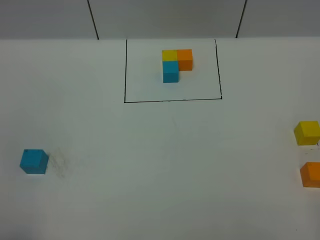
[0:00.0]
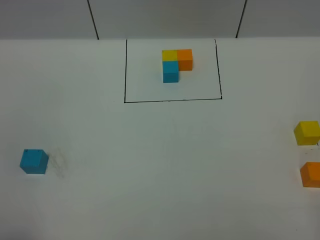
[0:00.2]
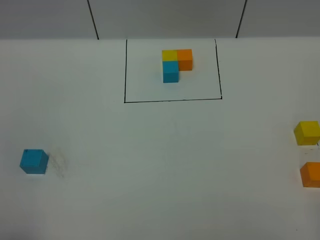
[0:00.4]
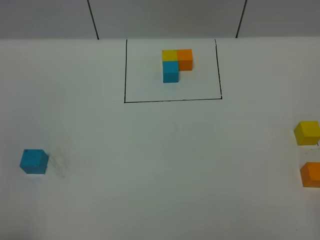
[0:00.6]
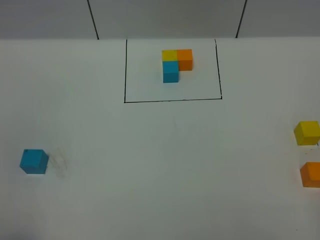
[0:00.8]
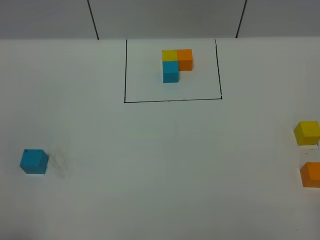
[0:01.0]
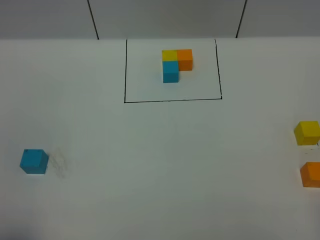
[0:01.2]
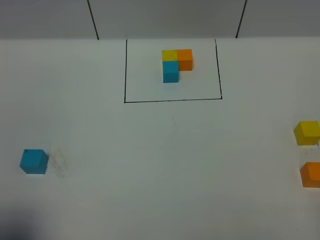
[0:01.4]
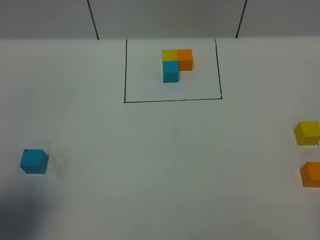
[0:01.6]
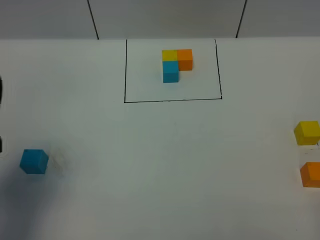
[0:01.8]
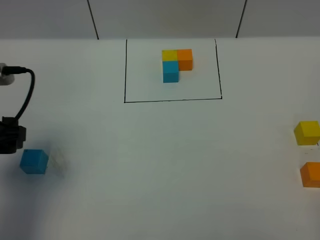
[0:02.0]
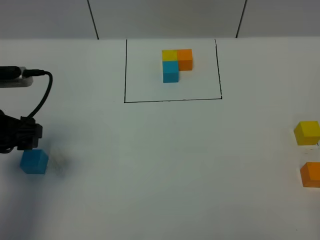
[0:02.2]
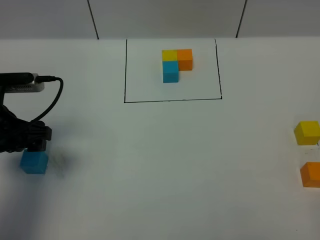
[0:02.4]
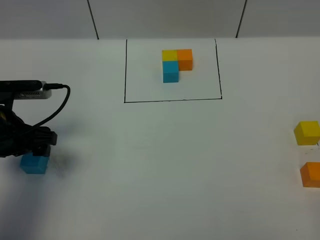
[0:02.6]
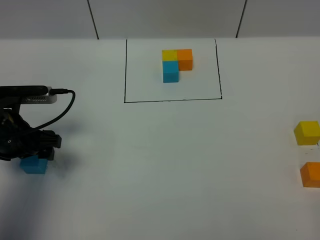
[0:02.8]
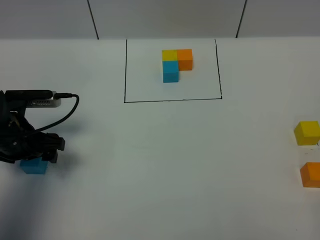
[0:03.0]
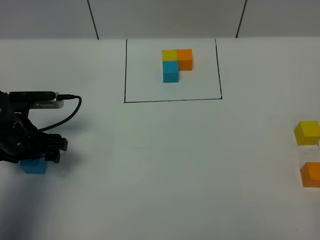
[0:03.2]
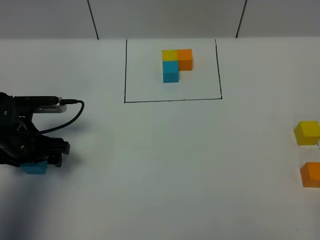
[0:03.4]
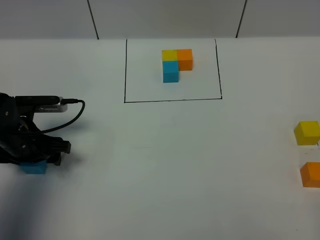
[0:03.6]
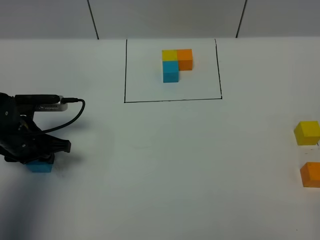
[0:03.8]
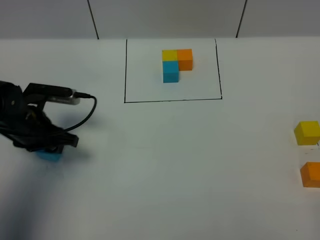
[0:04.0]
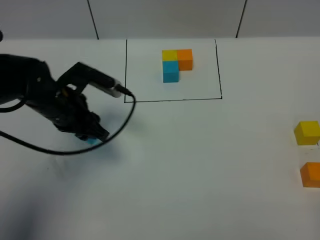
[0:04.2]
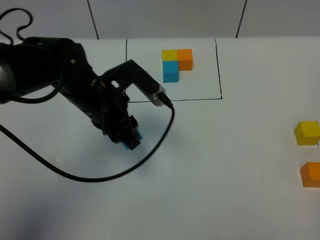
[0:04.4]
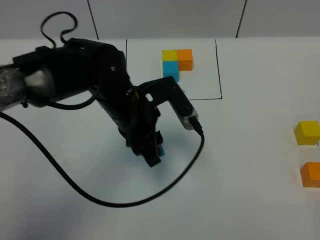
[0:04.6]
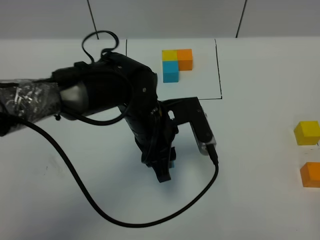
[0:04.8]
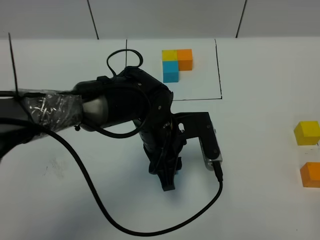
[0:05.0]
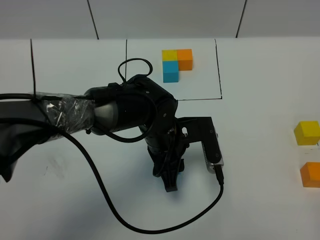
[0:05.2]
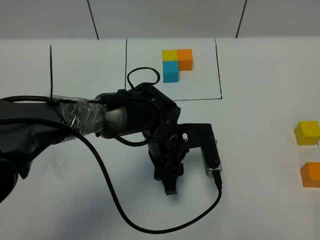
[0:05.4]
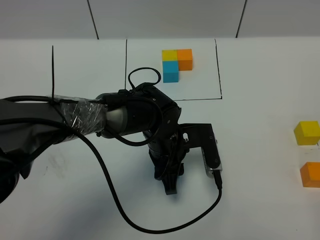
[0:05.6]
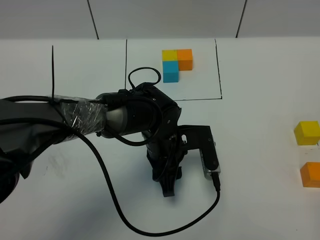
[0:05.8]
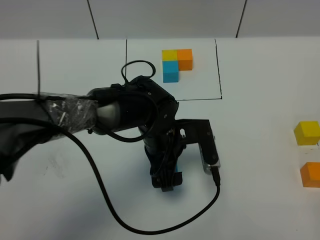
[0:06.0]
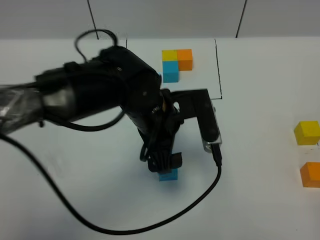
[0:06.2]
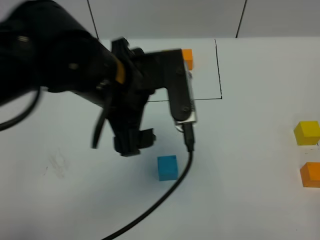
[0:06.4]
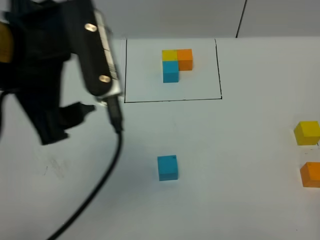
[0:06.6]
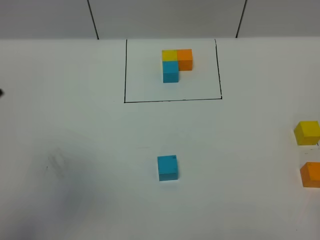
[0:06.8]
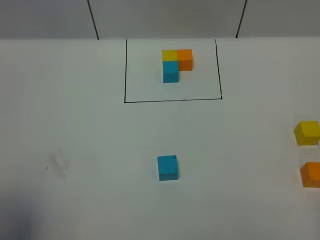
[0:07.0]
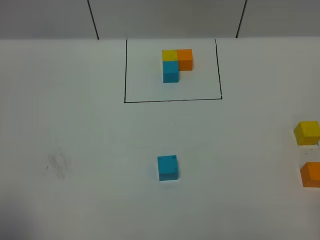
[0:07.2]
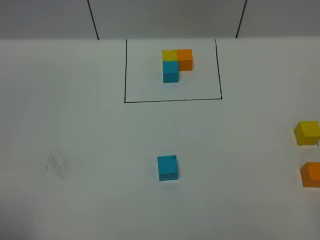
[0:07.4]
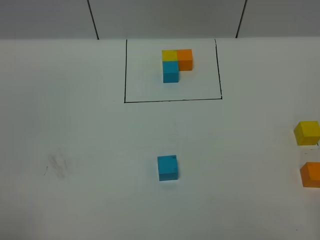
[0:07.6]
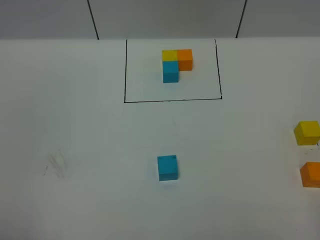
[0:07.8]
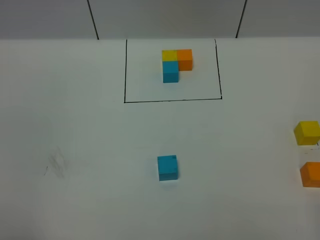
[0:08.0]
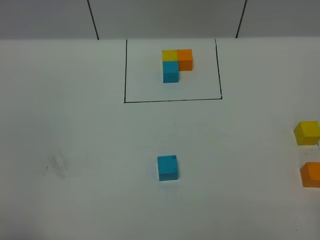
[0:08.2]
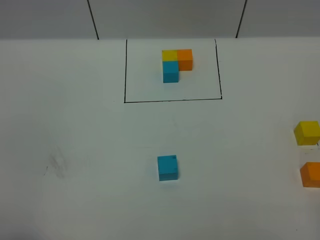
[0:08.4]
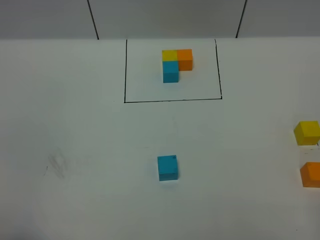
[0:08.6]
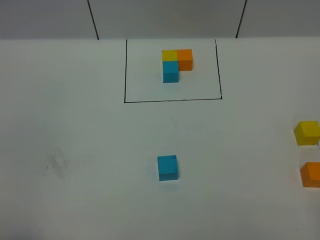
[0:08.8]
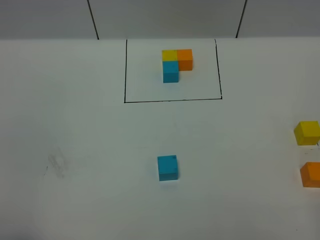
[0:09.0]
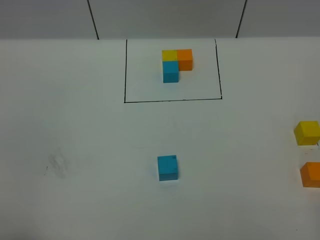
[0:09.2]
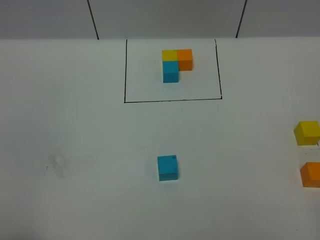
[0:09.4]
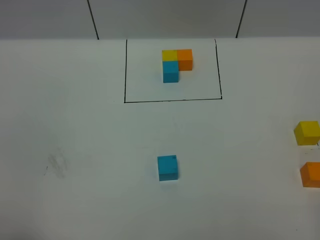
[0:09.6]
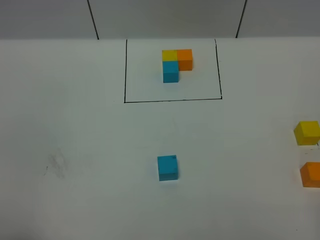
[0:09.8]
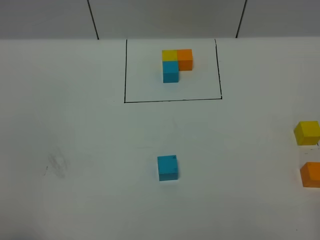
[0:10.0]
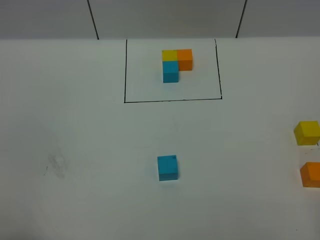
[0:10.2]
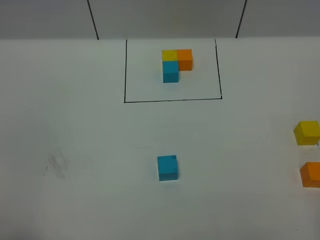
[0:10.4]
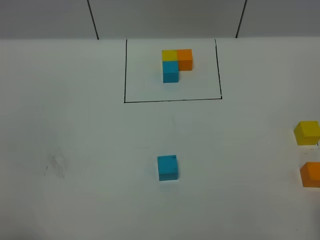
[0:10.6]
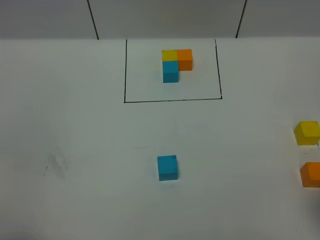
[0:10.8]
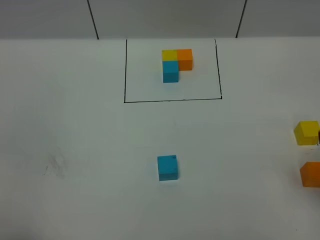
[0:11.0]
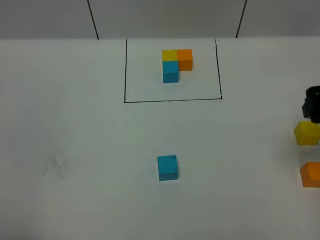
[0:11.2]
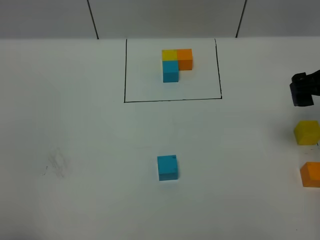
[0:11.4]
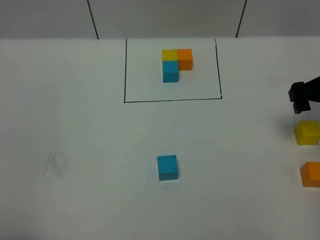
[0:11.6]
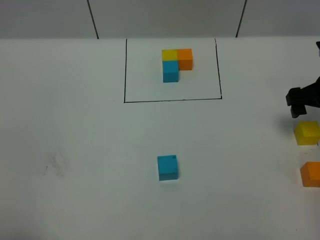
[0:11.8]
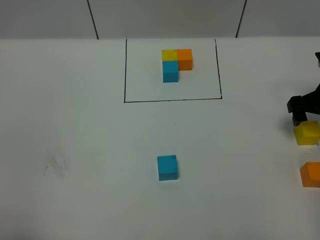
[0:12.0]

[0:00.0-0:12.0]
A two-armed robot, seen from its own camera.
Task of the whole recording: According to the building block template in front, assemble the scattered blocks together.
Step, 0:01.8 to 0:06.2: Put the blue cube in the center of the table.
0:00.0 to 0:01.6: The left gripper moves forward, some 10 cm.
0:01.6 to 0:03.0: The left gripper is displaced forward and downward by roughly 25 cm.
0:03.0 to 0:04.4: The left gripper travels to the right by some 15 cm, and closes.
0:04.4 to 0:06.0: The left gripper travels to the right and downward by about 10 cm, and opens its fingers.
0:06.0 to 0:07.6: The left gripper travels to the left, backward and upward by some 50 cm.
0:10.4 to 0:12.0: The right gripper heads forward, covering roughly 30 cm, and opens its fingers.

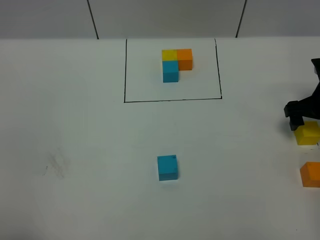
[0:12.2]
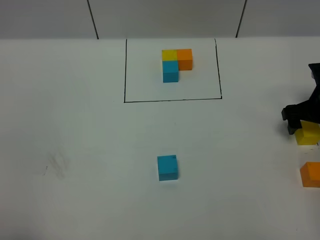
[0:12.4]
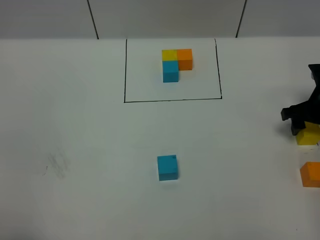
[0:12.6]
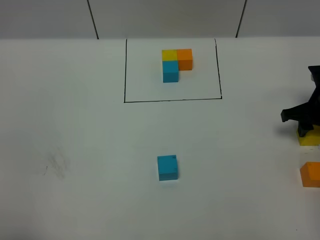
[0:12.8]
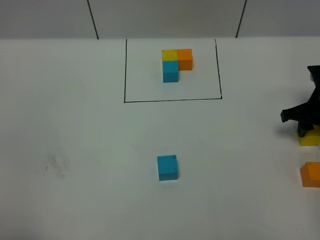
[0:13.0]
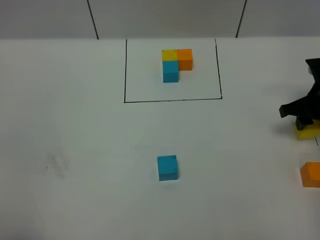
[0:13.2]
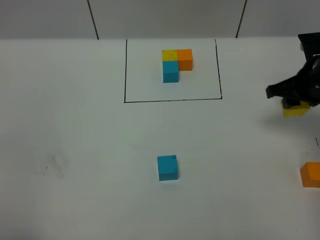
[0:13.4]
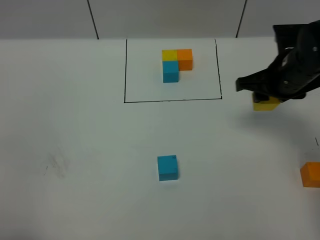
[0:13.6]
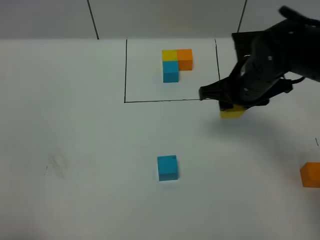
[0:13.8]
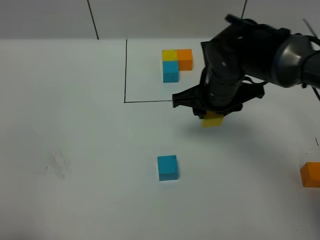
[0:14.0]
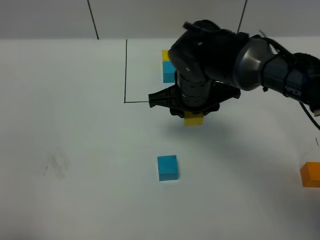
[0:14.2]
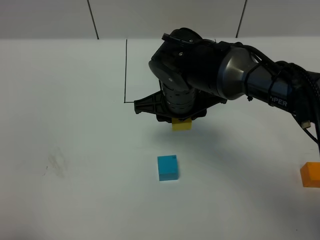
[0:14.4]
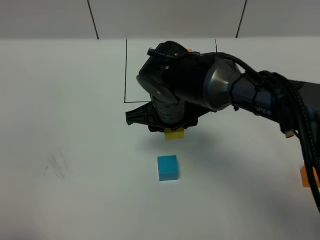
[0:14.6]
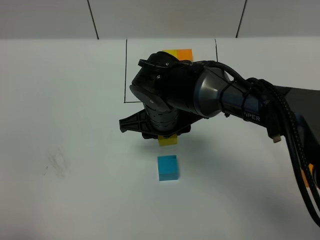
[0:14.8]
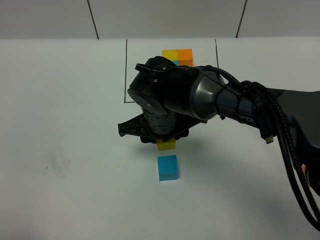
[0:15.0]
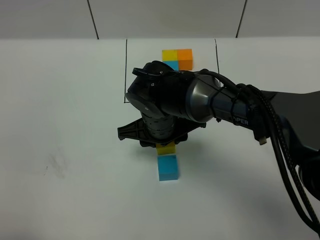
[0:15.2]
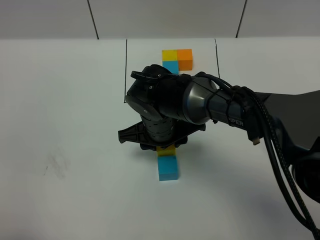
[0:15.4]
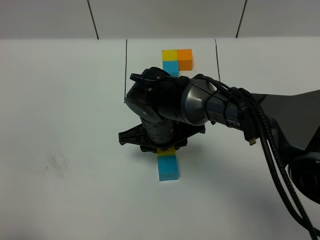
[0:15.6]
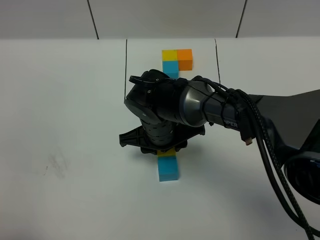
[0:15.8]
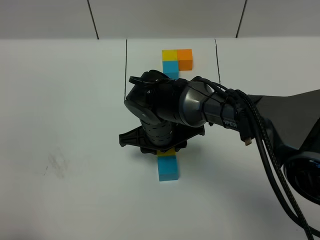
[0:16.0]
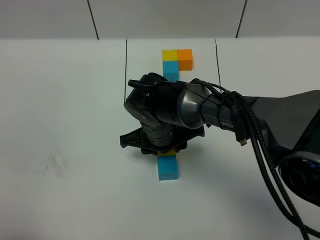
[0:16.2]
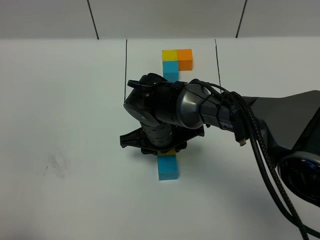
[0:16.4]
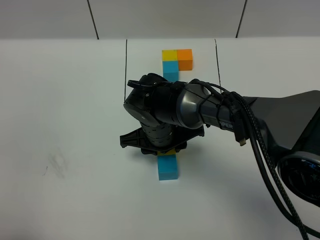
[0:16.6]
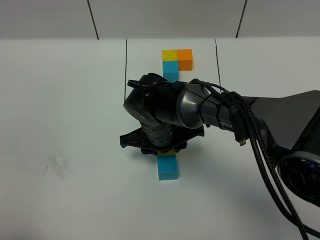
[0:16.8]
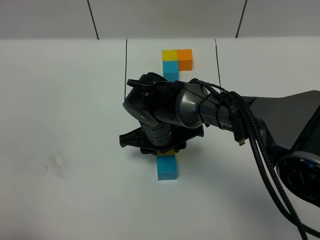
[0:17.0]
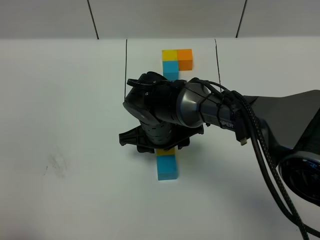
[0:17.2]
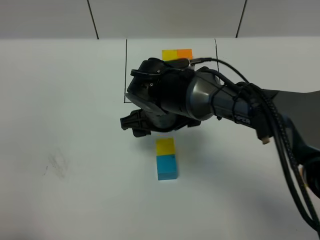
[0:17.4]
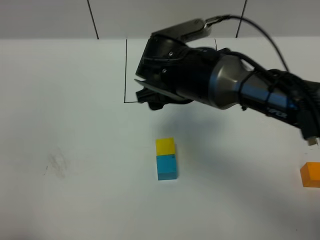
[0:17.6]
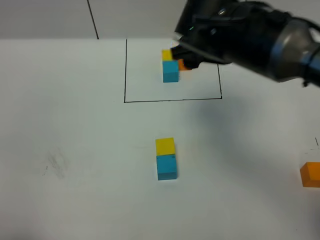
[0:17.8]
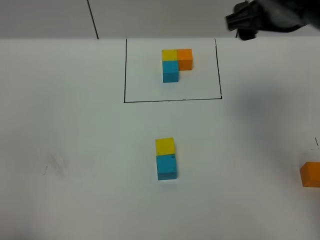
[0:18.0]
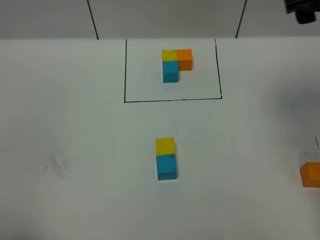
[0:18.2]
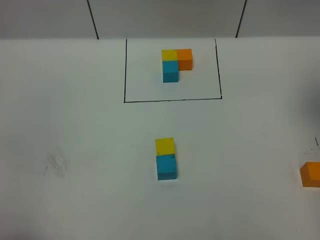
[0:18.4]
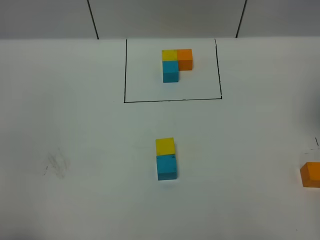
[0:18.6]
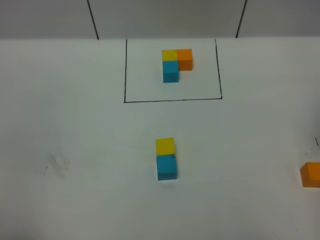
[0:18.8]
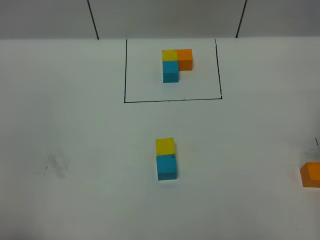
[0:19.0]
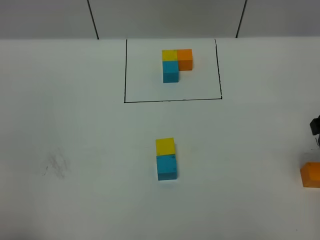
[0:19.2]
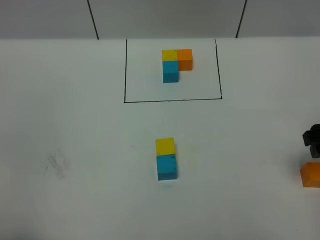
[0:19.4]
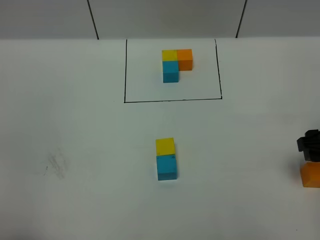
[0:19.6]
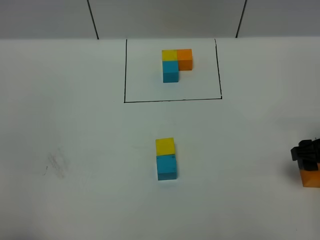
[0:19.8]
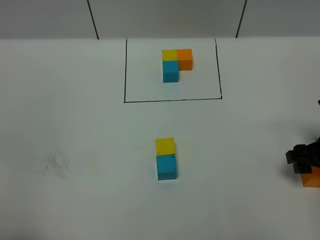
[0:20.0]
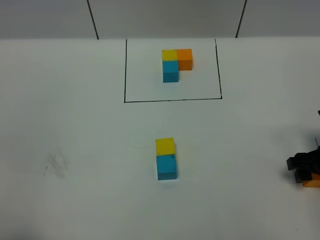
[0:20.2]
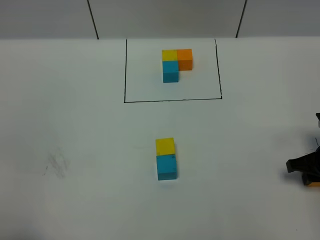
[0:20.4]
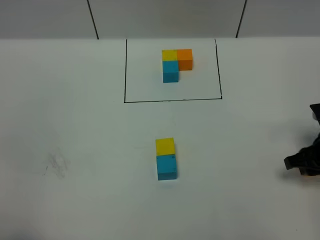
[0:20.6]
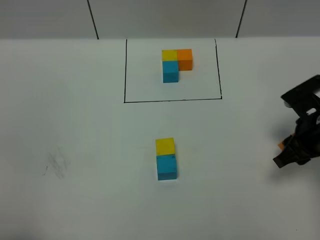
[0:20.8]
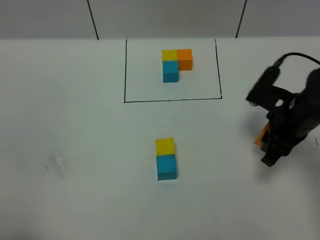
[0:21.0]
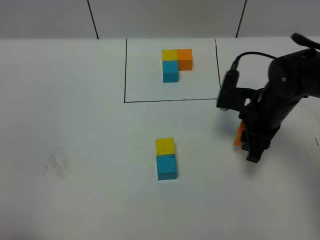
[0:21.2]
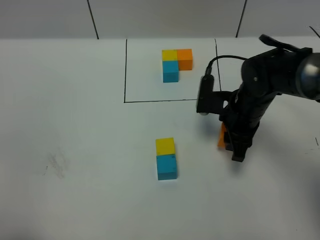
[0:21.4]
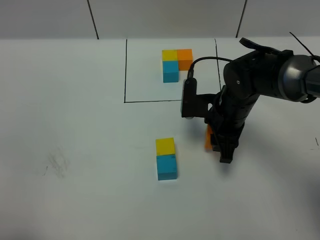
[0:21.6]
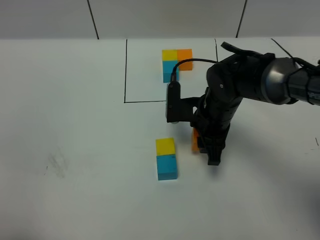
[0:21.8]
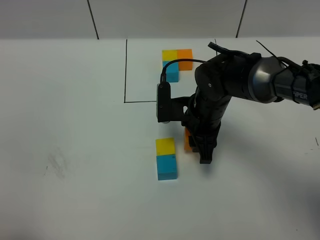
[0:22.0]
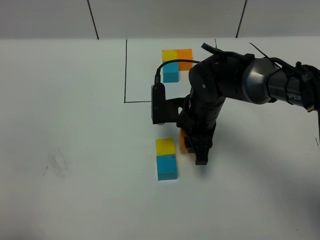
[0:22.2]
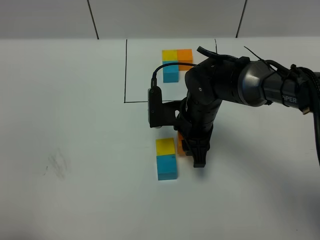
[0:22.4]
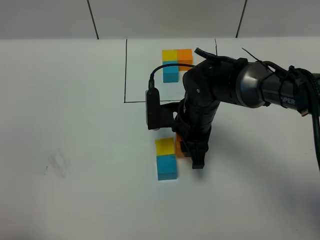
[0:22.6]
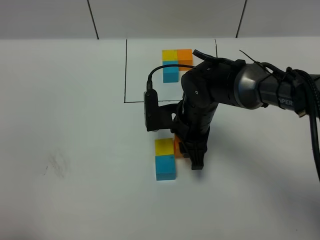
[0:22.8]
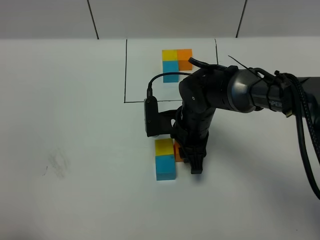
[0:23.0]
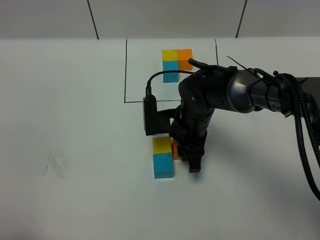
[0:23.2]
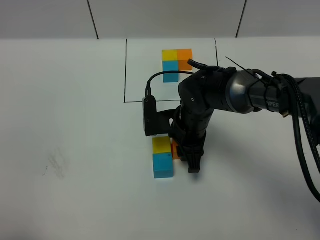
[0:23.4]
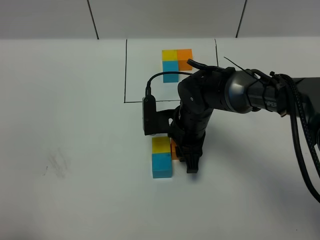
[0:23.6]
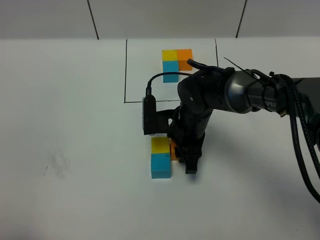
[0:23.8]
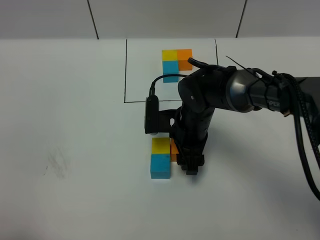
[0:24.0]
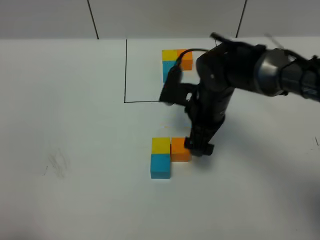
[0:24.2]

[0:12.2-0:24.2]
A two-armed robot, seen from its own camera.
Task of the whole recording: According to the building block template in front, assemble the scattered blocks together.
Step, 0:12.2 to 0:17.4: Put the yellow cube on the behind of the blue cube.
Step, 0:17.6 to 0:24.2: Put the orange cube on the right of the yellow cube.
0:12.2 to 0:13.8: The right gripper shifts approximately 20 cm to the left, and closes its fingers.
0:13.8 to 0:15.2: The right gripper is displaced to the left by some 15 cm.
0:15.2 to 0:16.6: The grippers stay close to where they were, moving slightly.
0:16.6 to 0:18.2: The right gripper moves upward and to the right, about 35 cm, and opens up.
0:18.2 to 0:19.8: The right gripper moves downward, roughly 25 cm.
0:19.8 to 0:21.2: The right gripper heads to the left and forward, covering approximately 15 cm, and closes up.
0:21.2 to 0:22.6: The right gripper is displaced to the left by roughly 10 cm.
0:22.6 to 0:24.2: The right gripper opens.
